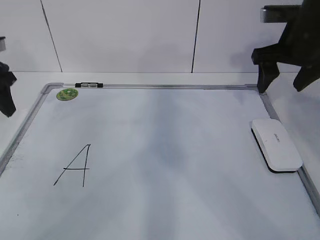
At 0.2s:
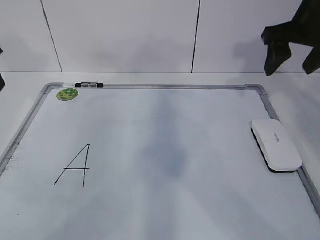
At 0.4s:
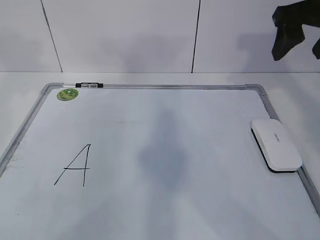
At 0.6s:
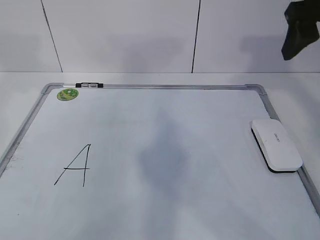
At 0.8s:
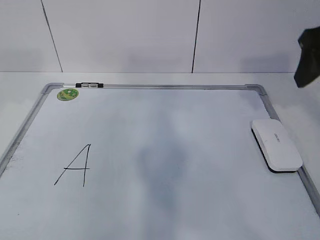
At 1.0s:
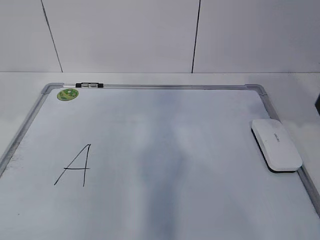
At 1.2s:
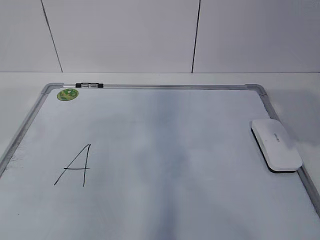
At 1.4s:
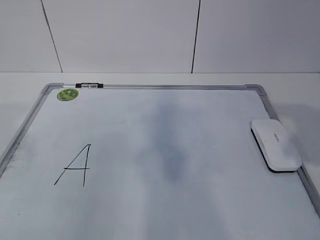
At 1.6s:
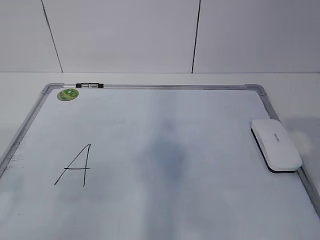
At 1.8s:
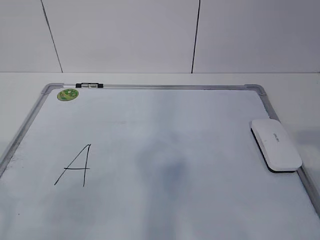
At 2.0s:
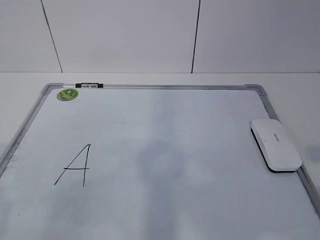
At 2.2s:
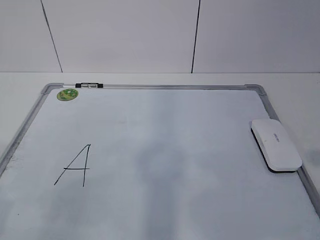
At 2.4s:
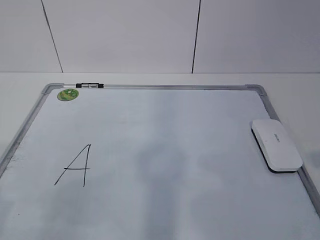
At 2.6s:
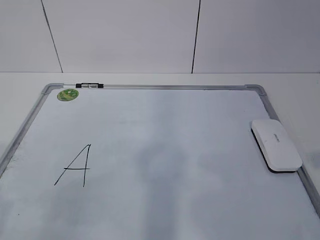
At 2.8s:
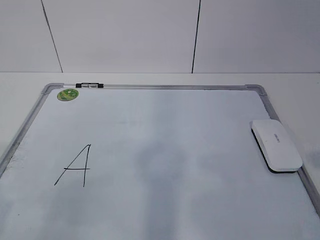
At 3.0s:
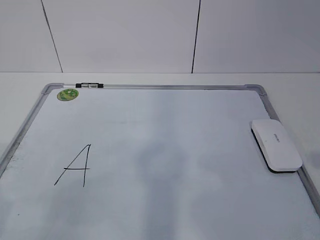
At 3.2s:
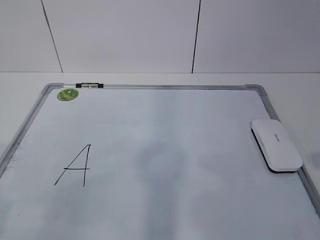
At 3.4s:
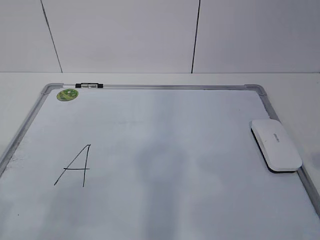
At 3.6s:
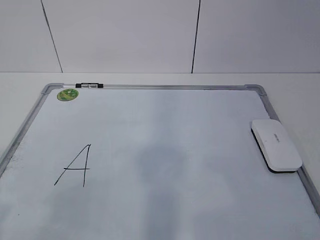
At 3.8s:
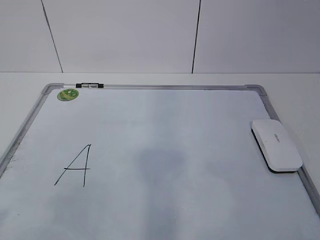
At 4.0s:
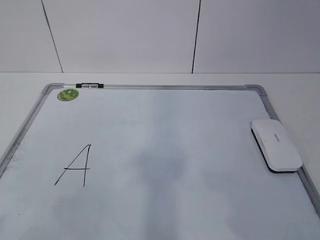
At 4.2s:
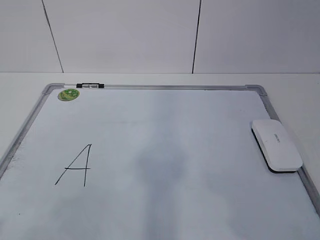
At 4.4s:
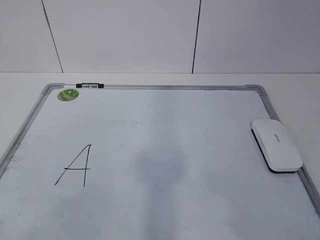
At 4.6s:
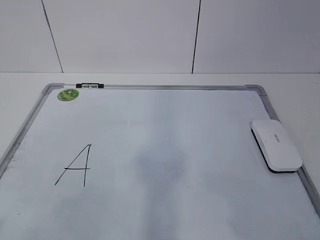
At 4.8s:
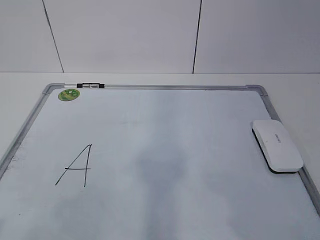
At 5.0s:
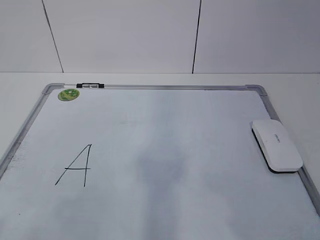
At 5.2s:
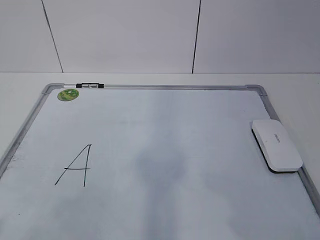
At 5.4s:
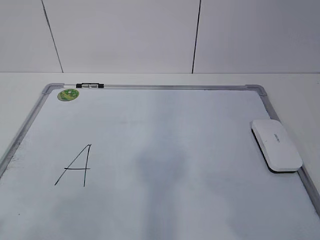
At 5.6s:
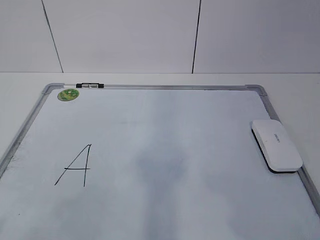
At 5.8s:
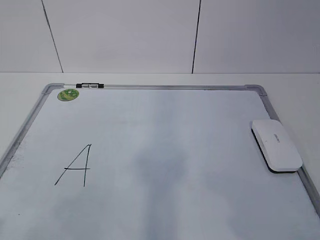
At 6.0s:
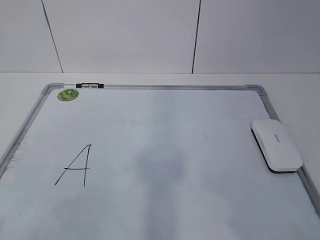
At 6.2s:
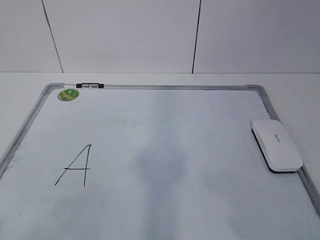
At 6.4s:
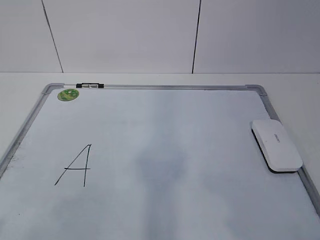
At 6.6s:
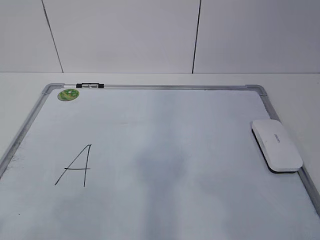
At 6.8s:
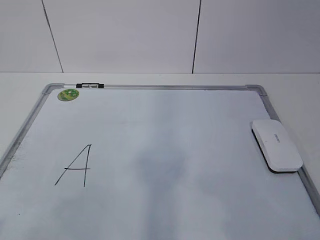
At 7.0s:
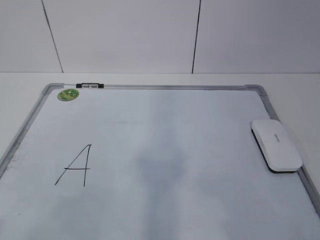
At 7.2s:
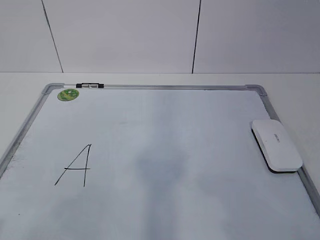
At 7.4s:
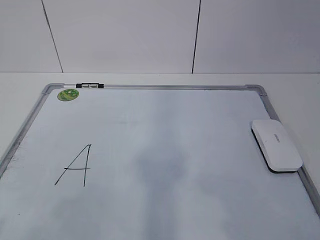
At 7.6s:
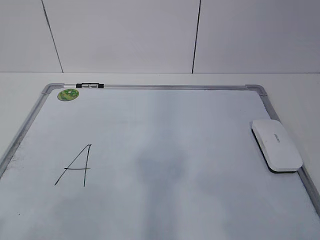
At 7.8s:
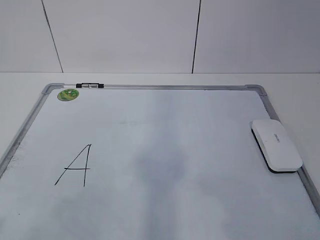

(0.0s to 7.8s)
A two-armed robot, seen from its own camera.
Task of the whole recording: pick up the eraser on the blackboard and erase the letter "a".
0.0s - 1.6s: Both grippers travel together backward, some 30 cm. The right gripper closes its fingers.
1.6s - 3.2s: The right gripper is displaced downward by some 5 cm.
4.6s - 6.2s: Both grippers stay about where they are.
6.2s - 7.8s: Both grippers stay put.

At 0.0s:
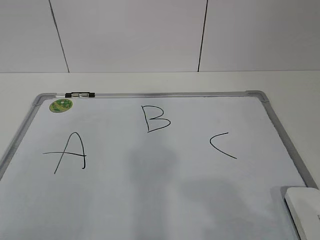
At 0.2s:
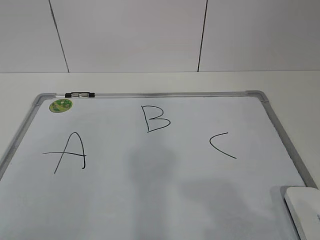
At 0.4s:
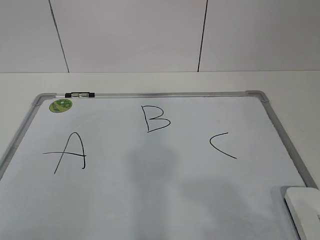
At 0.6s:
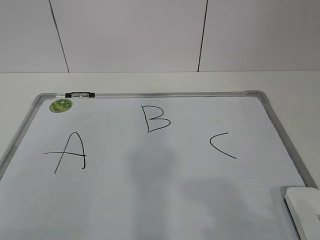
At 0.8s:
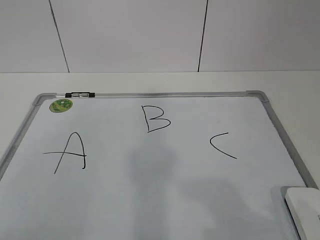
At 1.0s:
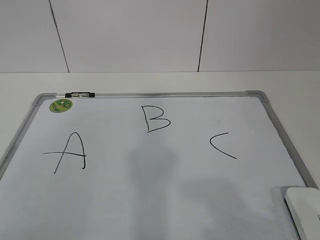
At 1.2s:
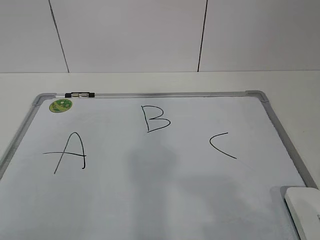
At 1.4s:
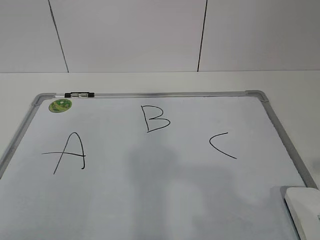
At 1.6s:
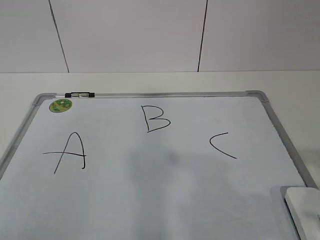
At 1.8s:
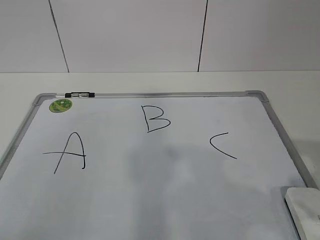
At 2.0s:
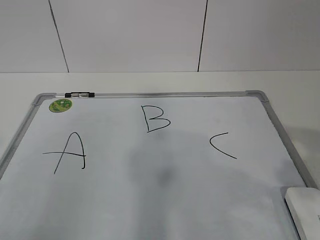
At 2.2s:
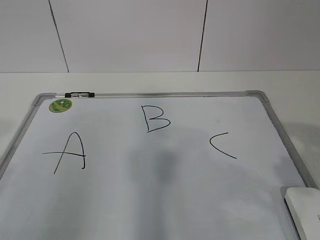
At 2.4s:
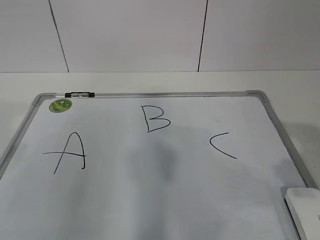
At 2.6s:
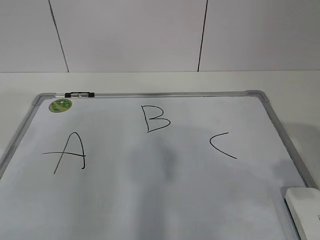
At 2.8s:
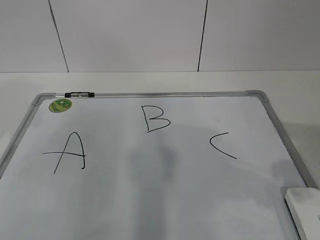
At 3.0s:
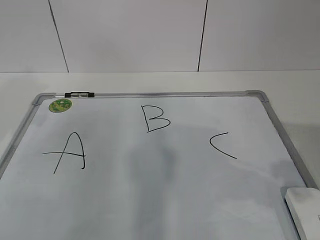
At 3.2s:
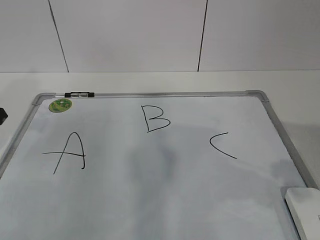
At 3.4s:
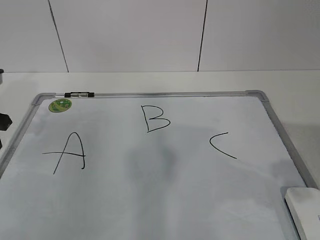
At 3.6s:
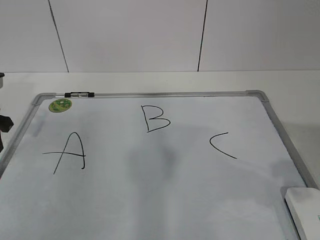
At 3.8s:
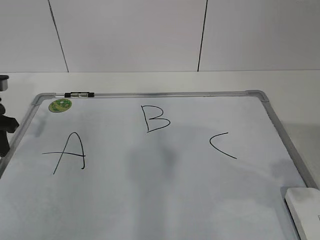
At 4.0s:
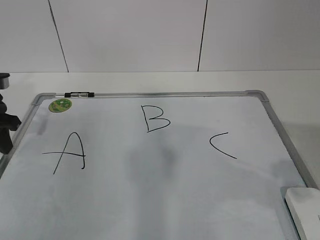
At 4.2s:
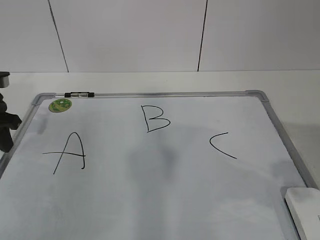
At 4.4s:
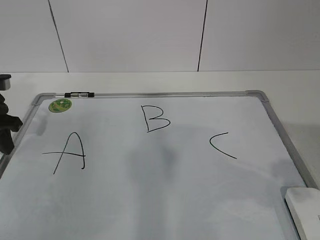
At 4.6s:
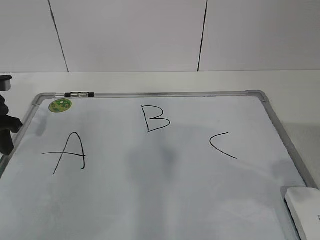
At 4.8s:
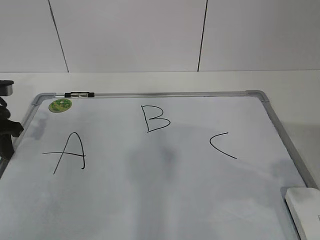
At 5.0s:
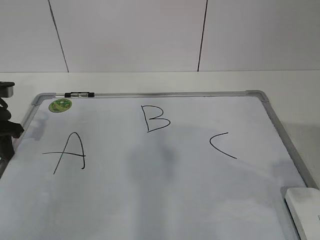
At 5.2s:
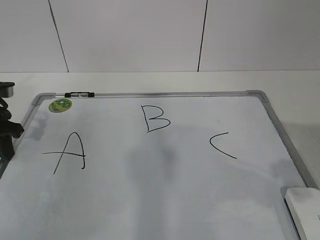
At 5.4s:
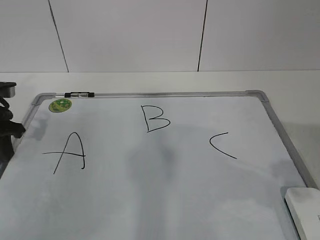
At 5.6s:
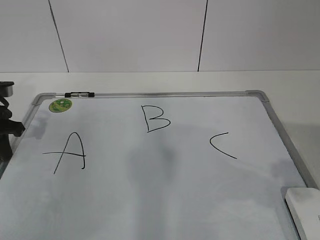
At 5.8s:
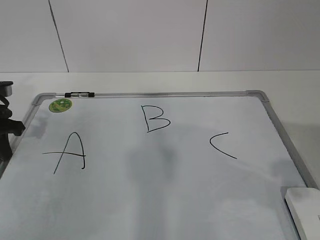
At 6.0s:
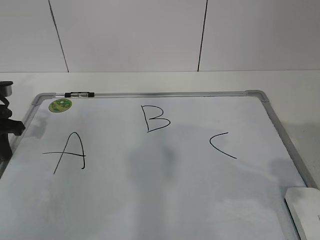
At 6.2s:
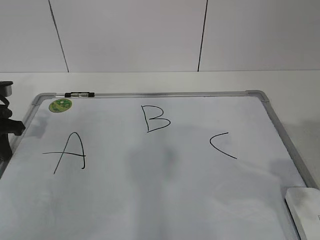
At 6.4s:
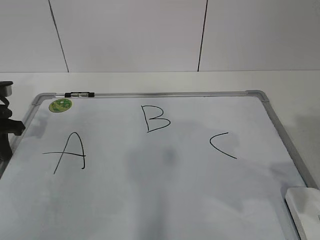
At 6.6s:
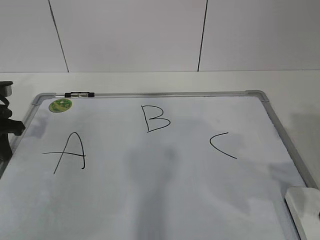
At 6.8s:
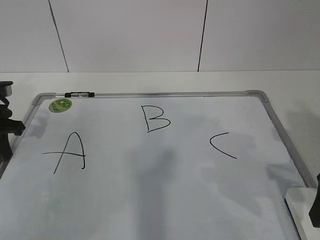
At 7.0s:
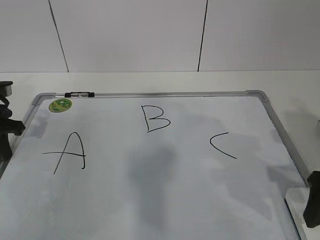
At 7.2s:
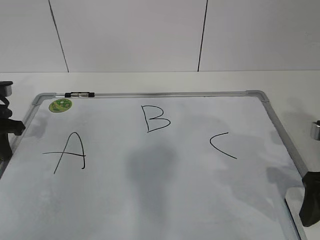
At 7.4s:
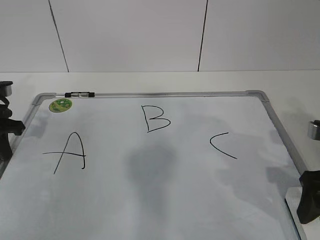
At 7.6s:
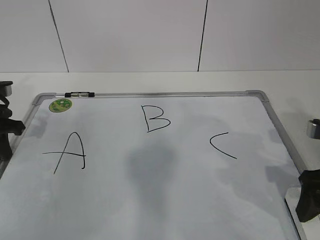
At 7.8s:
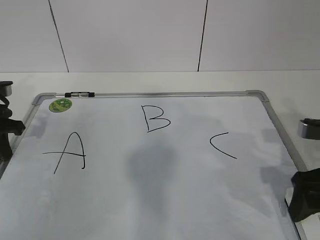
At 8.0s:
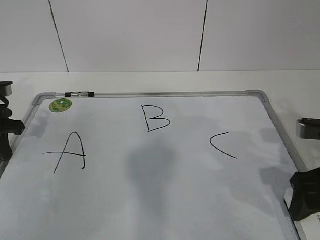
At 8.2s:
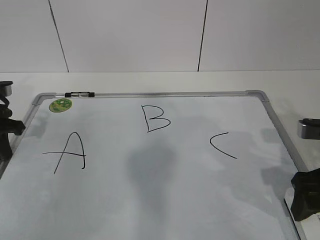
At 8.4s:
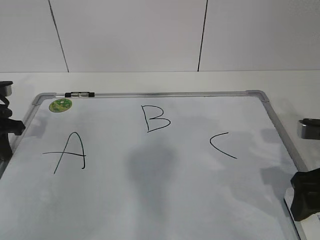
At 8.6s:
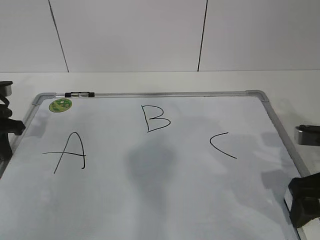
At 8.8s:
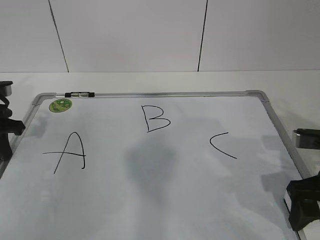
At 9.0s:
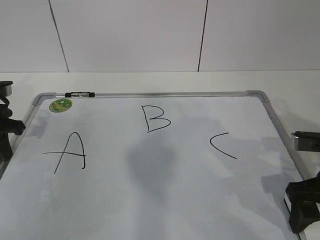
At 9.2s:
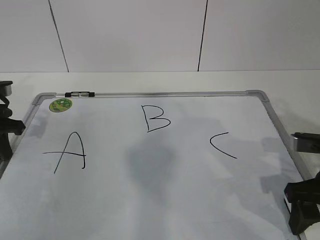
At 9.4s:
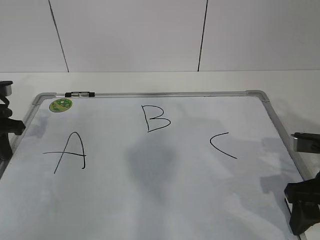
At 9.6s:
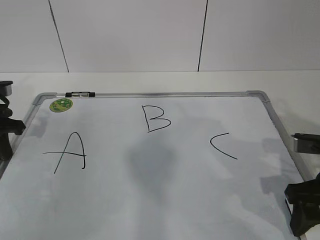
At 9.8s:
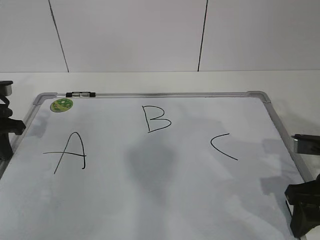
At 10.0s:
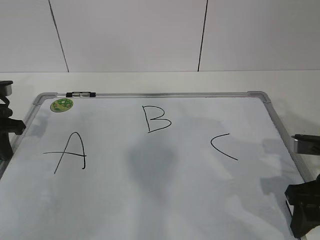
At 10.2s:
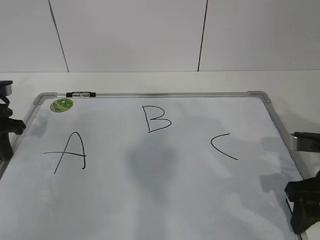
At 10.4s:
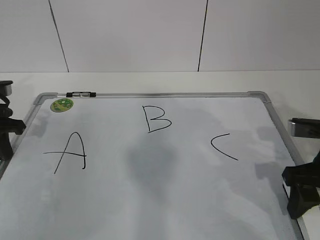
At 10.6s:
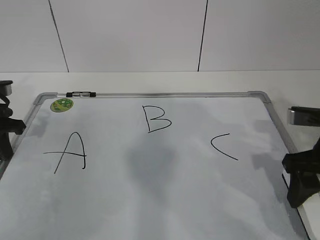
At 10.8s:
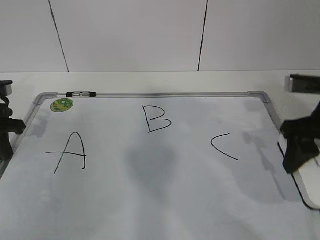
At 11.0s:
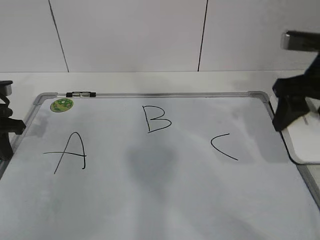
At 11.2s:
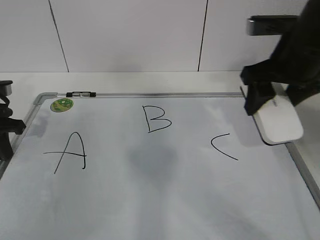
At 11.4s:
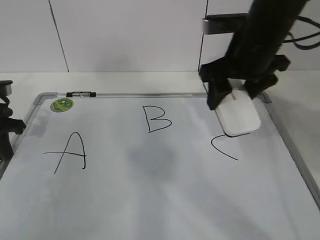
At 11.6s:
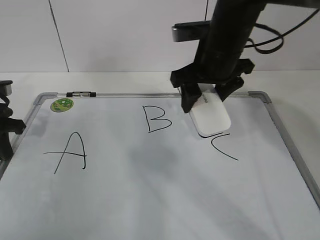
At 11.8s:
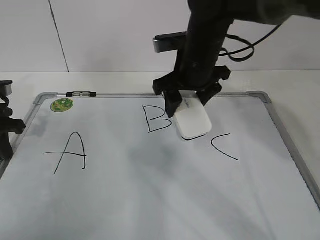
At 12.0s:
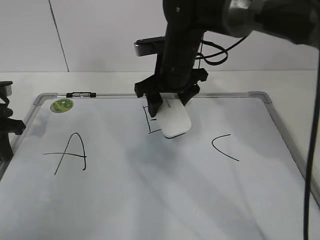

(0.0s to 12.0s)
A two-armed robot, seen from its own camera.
Task of the whole recording: pick up the eraser on the blackboard and erase the letter "B".
Step, 4.2s - 8.2s: Grab the eraser with your right hand.
3.0s - 4.4s: The left gripper travels downward by roughly 10 cm.
4.4s - 6.0s: The left gripper closes its fingers.
6.0s - 7.6s: The right gripper shifts some 15 cm downward and forward.
7.6s - 9.0s: The grippers stay close to where they were, moving slightly.
9.0s - 10.4s: The right gripper closes.
10.4s - 12.0s: The right gripper heads to the left and forward, covering roughly 25 cm.

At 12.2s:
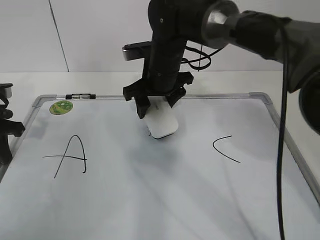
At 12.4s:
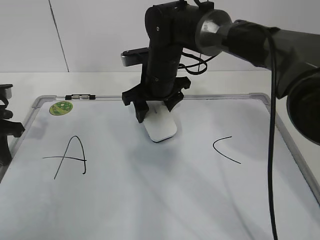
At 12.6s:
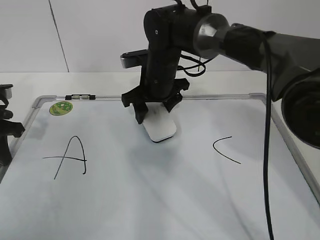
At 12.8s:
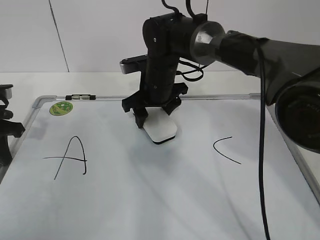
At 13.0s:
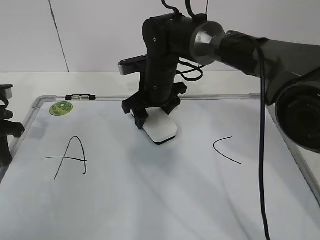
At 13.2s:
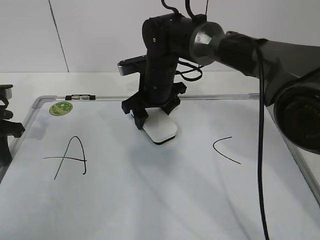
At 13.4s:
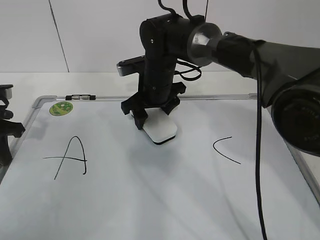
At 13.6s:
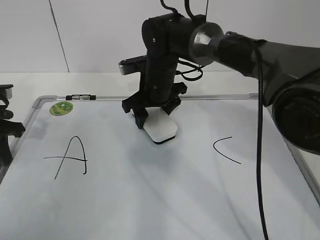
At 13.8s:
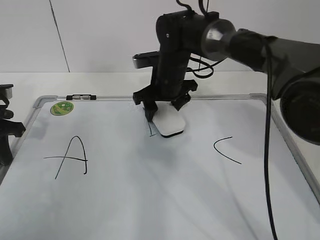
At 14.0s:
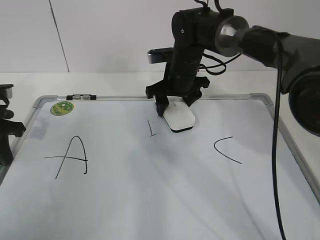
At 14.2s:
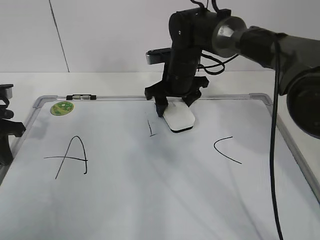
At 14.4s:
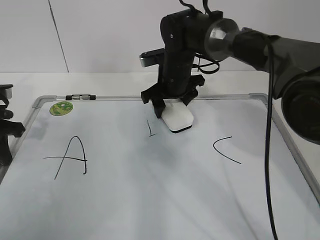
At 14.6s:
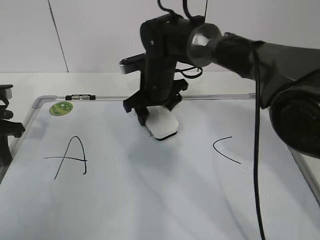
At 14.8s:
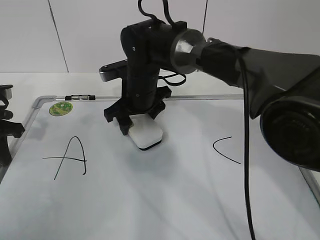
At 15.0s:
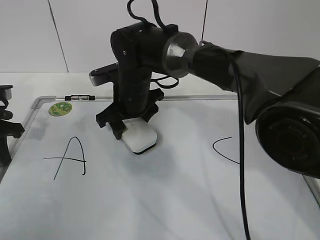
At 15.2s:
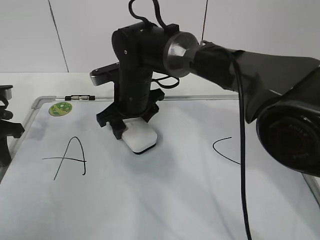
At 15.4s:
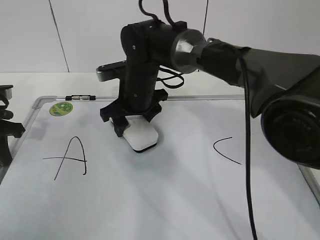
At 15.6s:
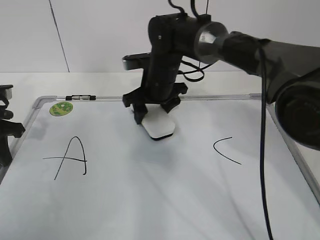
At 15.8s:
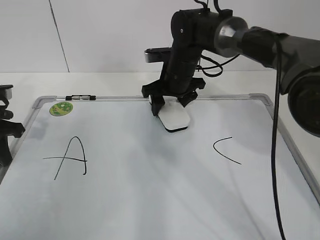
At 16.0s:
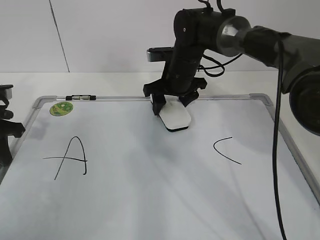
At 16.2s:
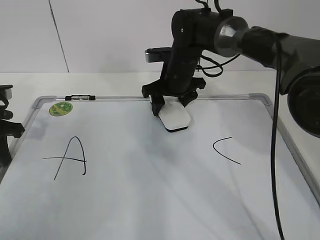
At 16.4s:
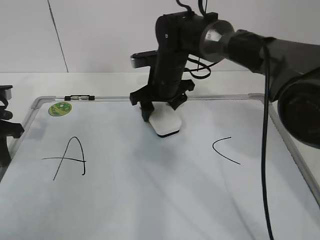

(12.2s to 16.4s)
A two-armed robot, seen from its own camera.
Task of the whole recording: pick up the eraser on the blackboard and erase the letter "B".
Step, 12.2s - 14.8s: Erase the letter B with your right hand.
12.2s - 13.6s: There are only small adjustments of the grippers.
13.6s - 15.0s: The right gripper heads to the left, covering about 5 cm.
15.0s - 16.4s: The right gripper heads to the right, covering about 5 cm.
